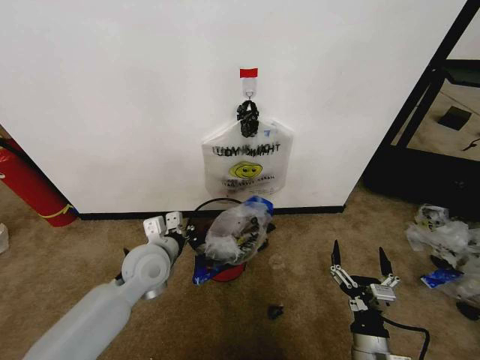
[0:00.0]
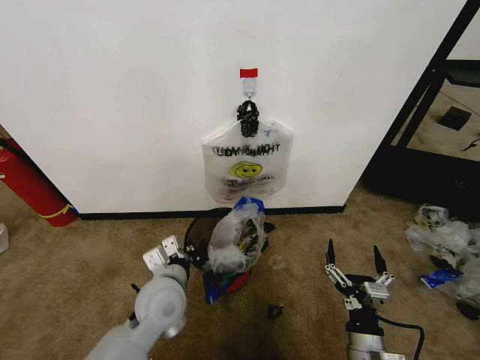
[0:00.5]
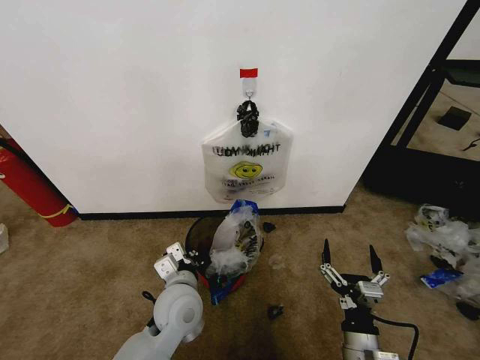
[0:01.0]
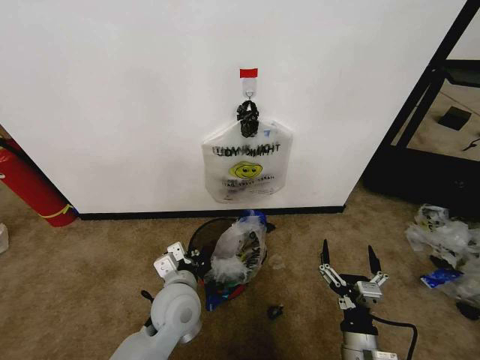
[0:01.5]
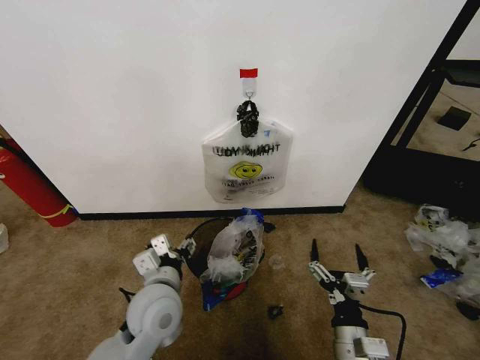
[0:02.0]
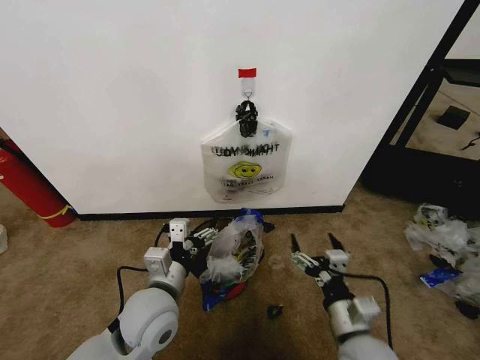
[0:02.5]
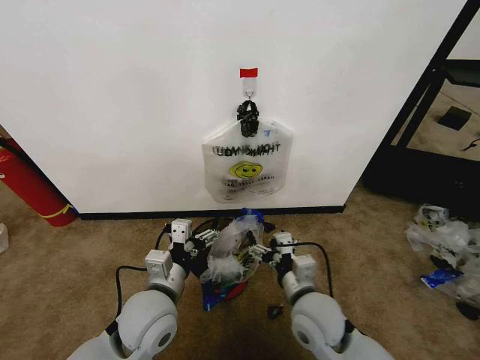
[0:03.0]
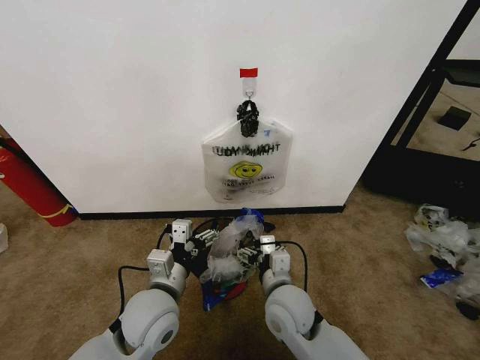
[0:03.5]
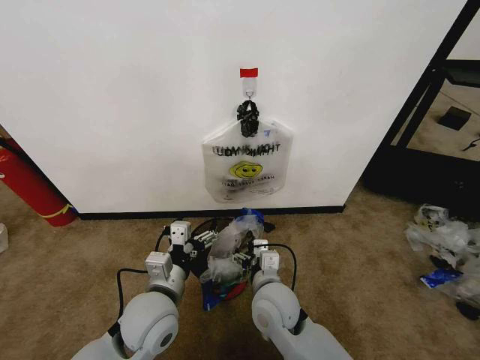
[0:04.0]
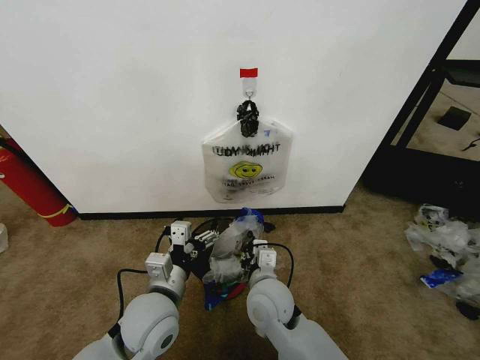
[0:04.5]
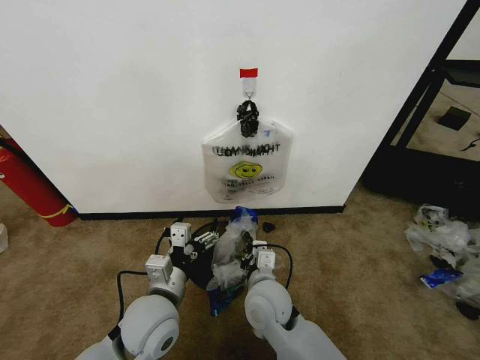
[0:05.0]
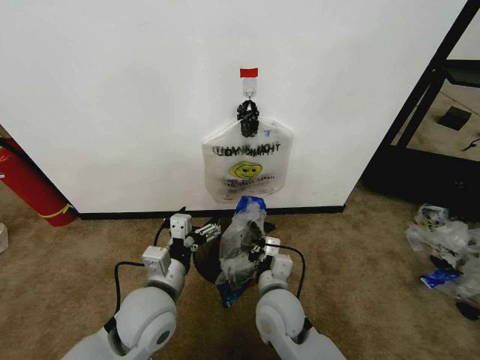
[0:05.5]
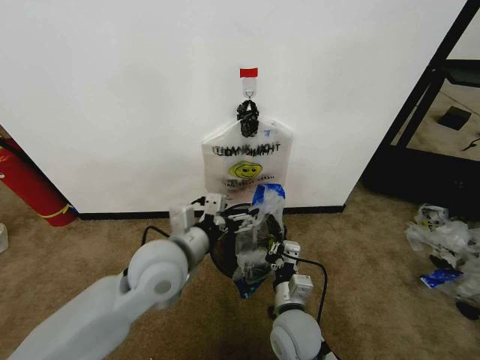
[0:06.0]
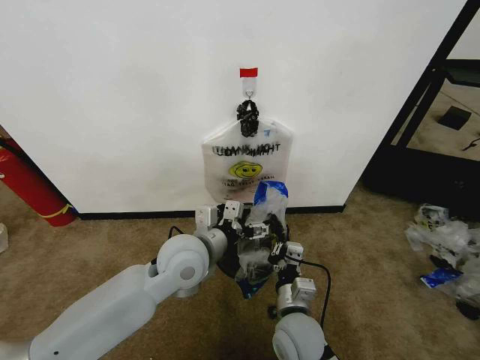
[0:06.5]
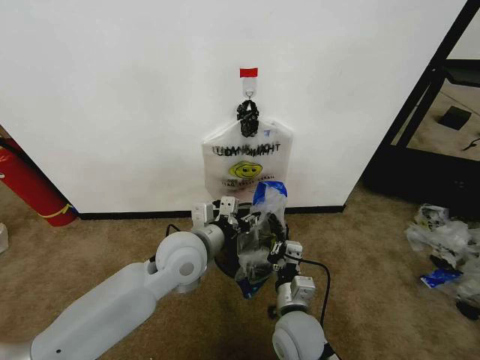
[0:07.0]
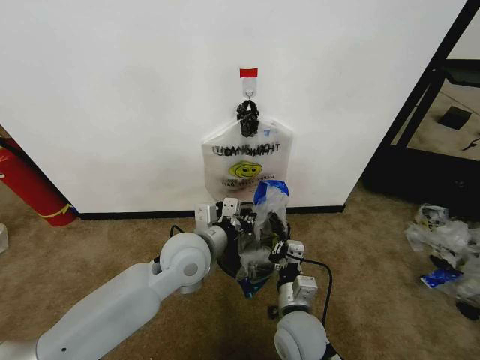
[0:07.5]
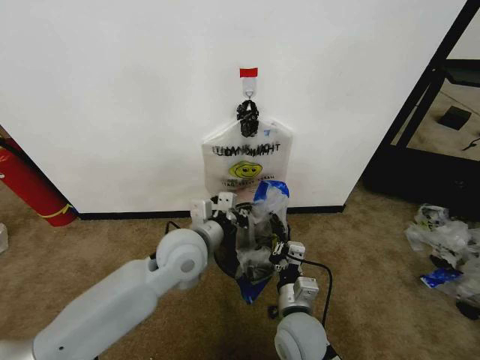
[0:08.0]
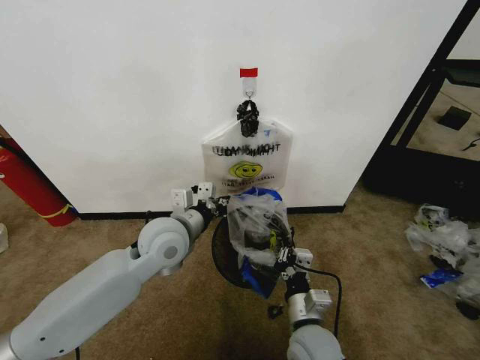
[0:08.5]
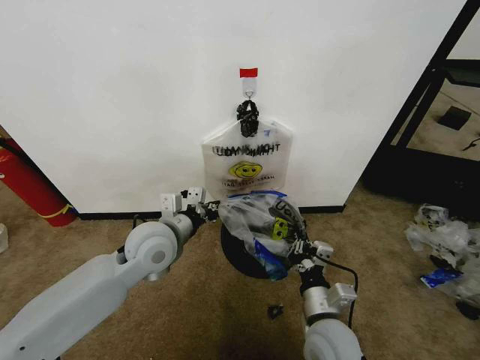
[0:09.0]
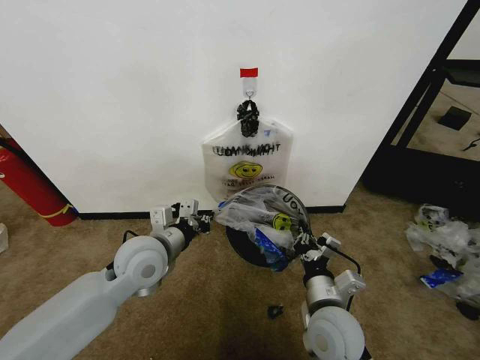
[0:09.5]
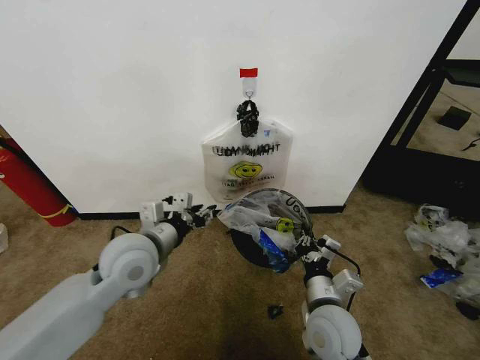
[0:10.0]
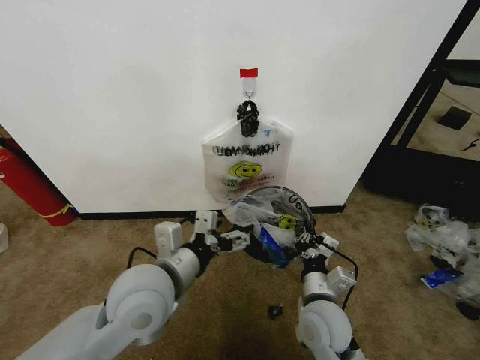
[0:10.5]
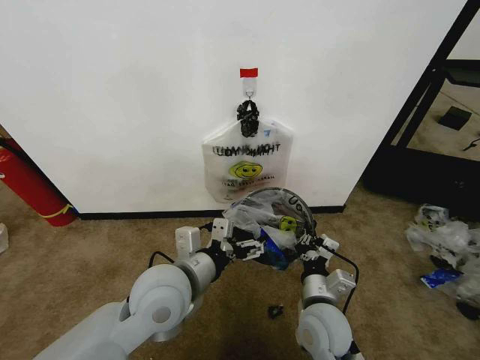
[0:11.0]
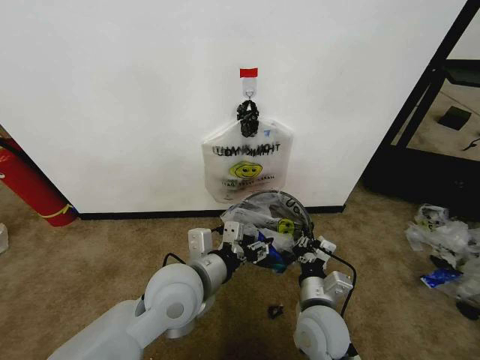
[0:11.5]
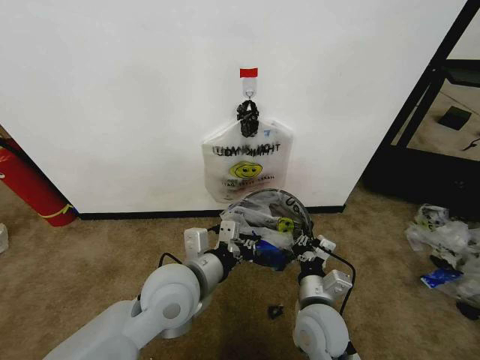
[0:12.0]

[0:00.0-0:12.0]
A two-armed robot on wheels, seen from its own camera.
Task of the whole recording: Pick up the garbage bag from the wall and place it over the trash bin.
0:00.0 to 0:02.0: The left gripper heads backward, covering some 10 cm, and opens up.
0:02.0 to 0:04.0: The right gripper shifts roughly 20 cm to the left and forward.
0:04.0 to 0:06.0: The left gripper is displaced upward by some 10 cm; the right gripper moves approximately 5 cm, and closes its fingers.
0:06.0 to 0:08.0: The left gripper goes some 5 cm forward, and closes.
0:08.0 to 0:10.0: The right gripper shifts roughly 5 cm to the right. The left gripper is displaced to the left by some 10 cm, and opens.
0:10.0 to 0:12.0: The left gripper goes roughly 10 cm to the right and backward, and closes its fingers.

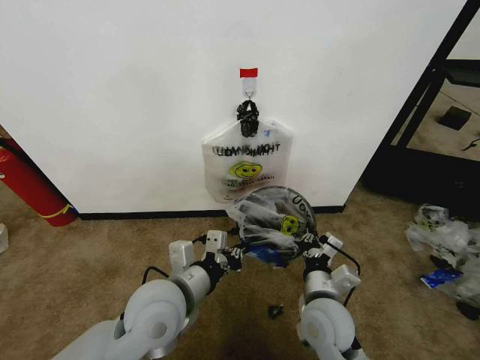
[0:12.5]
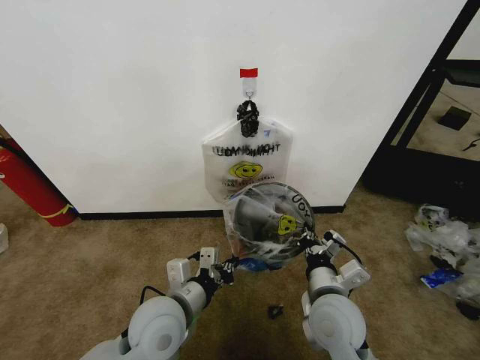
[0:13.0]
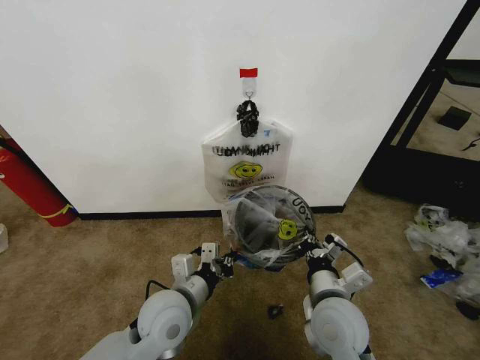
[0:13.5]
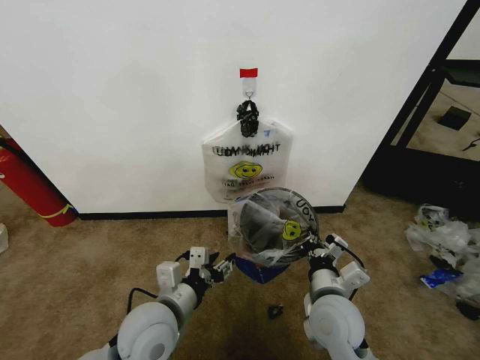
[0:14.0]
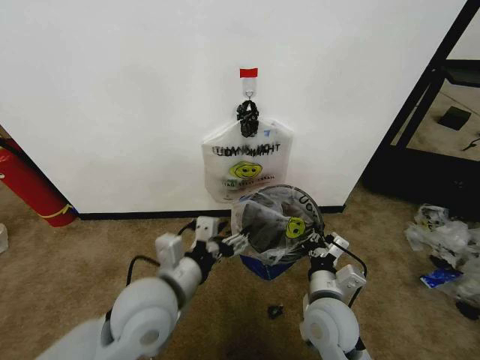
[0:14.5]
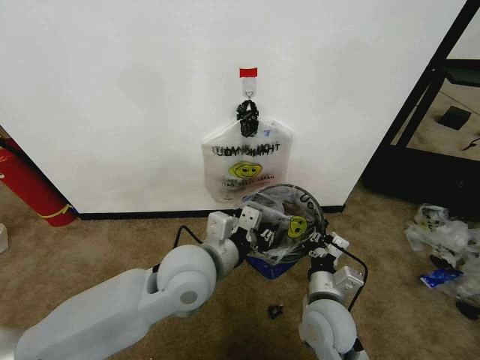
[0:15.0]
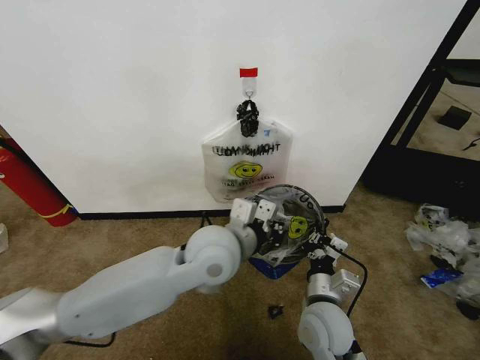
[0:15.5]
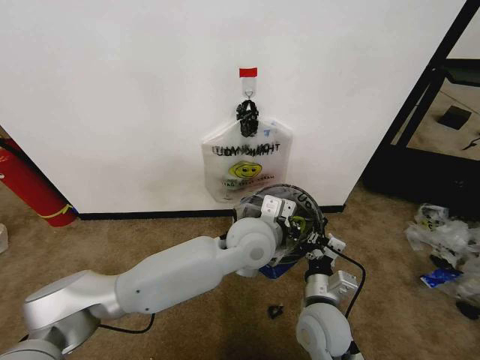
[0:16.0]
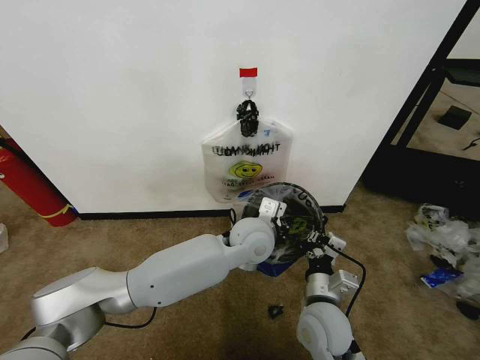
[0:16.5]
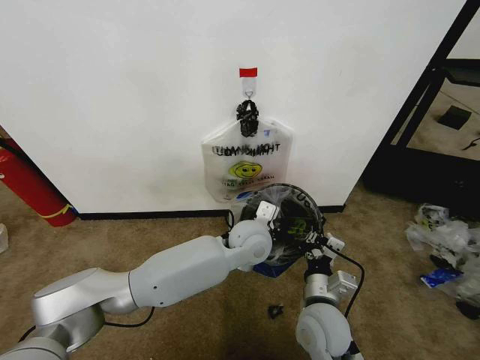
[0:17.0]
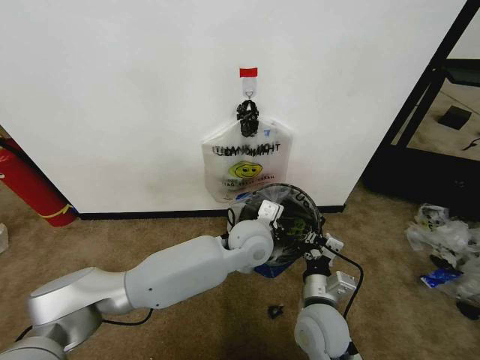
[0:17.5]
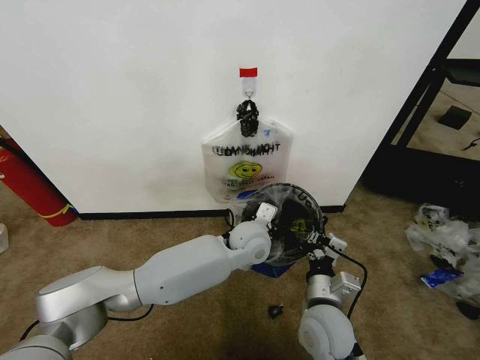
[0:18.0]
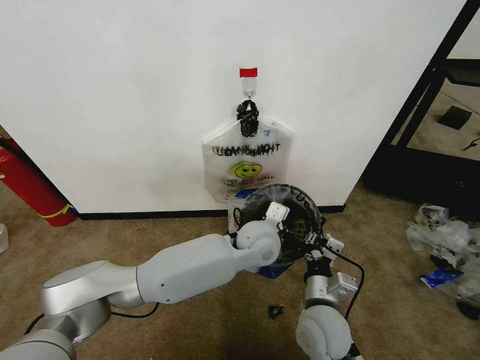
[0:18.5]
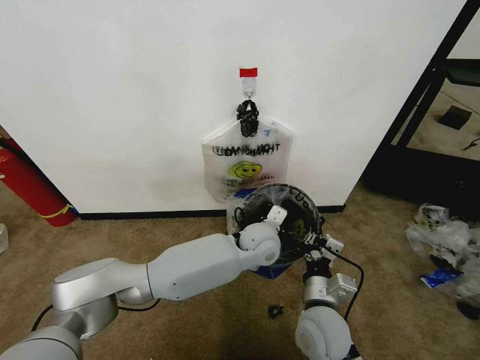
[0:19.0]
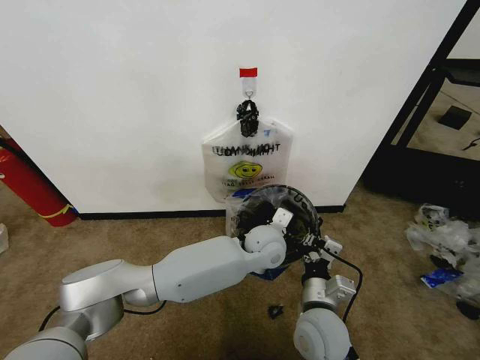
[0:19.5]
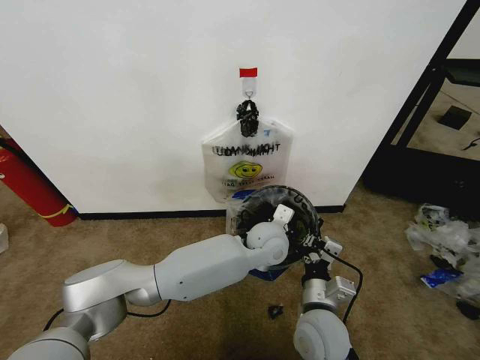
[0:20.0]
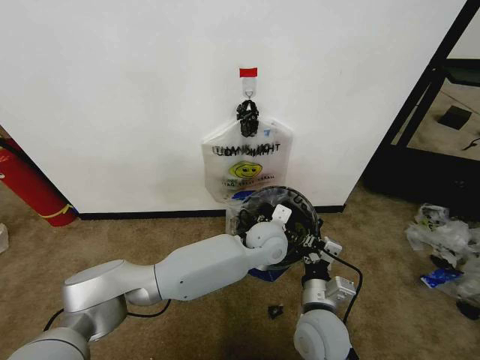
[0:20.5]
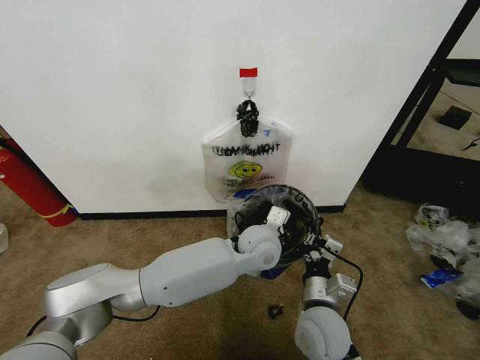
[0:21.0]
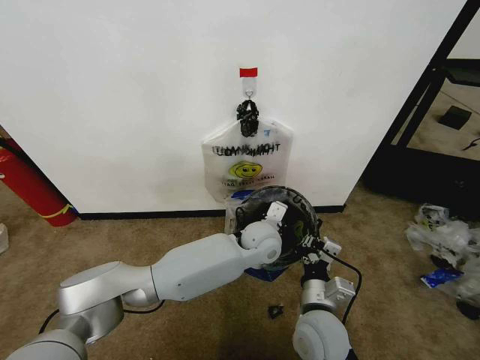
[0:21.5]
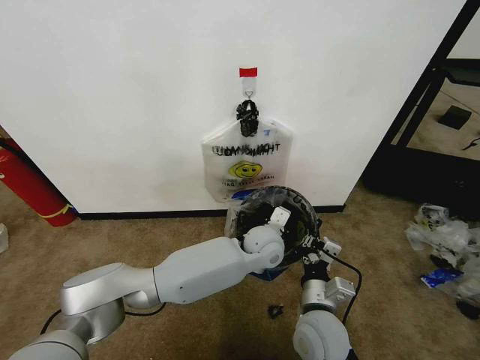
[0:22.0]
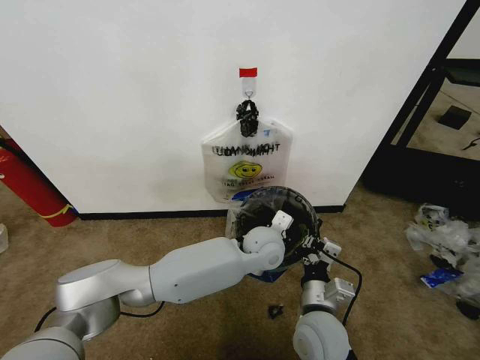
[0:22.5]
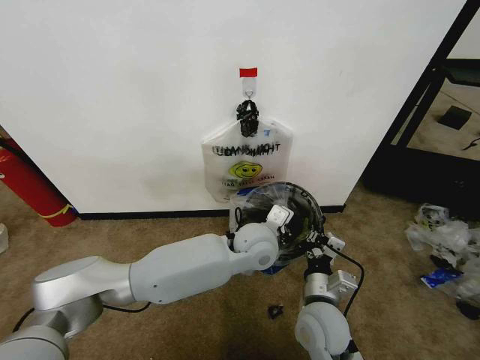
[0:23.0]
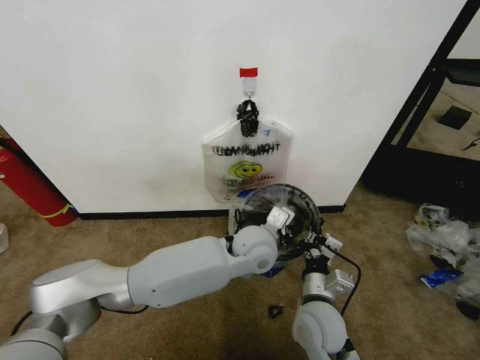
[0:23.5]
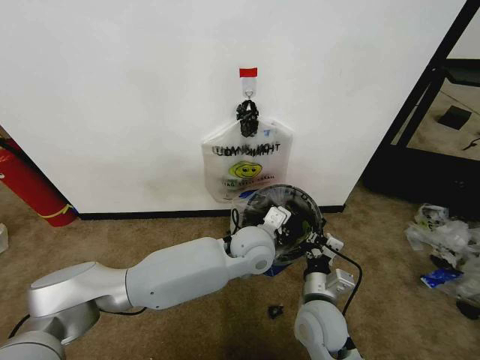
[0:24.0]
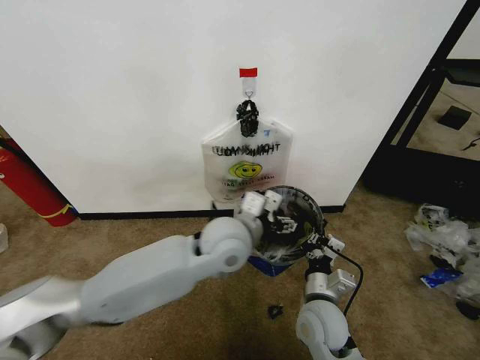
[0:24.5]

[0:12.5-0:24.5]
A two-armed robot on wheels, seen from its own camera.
Task of the whole recording: Pick up the garbage bag from the wall and place it over the trash bin.
0:12.5 to 0:14.5: The left gripper moves approximately 5 cm downward and comes back, and opens.
0:14.5 to 0:16.5: The left gripper moves to the right and forward, roughly 25 cm, and closes up.
0:16.5 to 0:18.5: The grippers move only a little.
0:18.5 to 0:20.5: The left gripper opens.
0:20.5 to 0:22.5: The left gripper closes up.
0:22.5 to 0:24.5: The left gripper is displaced upward, to the left and backward by about 15 cm, and opens up.

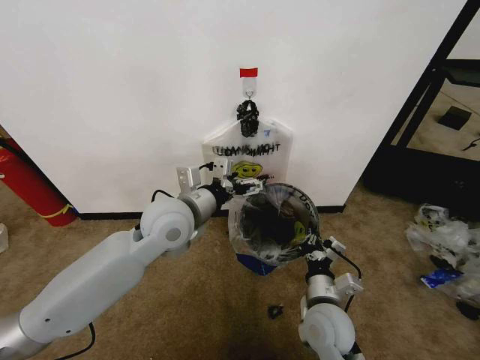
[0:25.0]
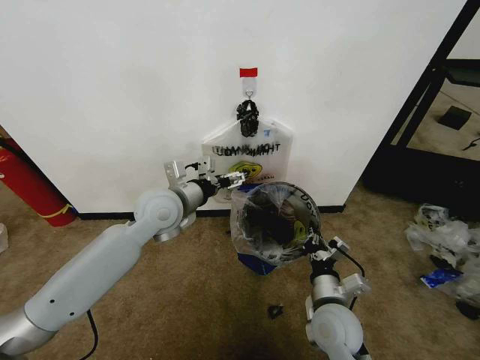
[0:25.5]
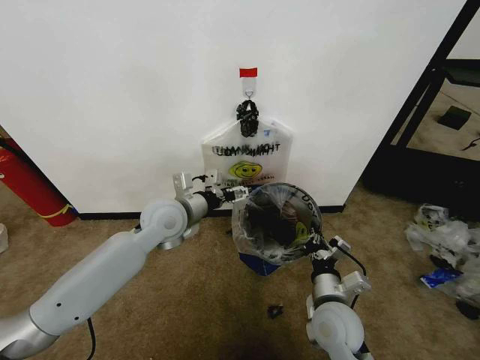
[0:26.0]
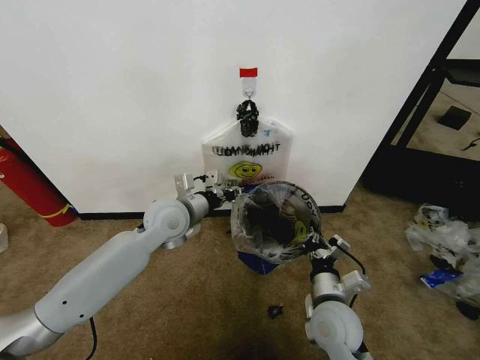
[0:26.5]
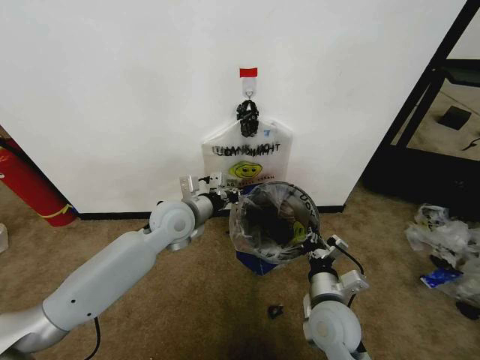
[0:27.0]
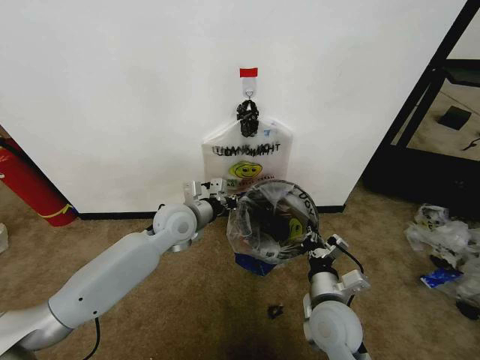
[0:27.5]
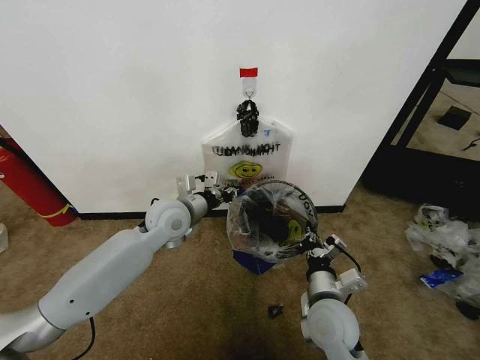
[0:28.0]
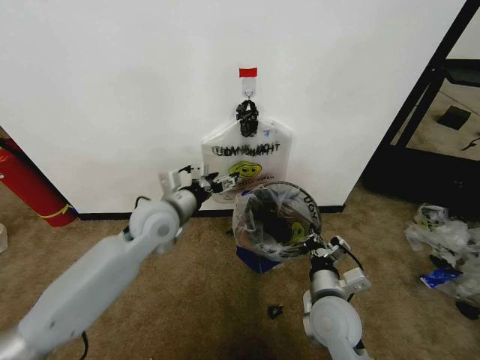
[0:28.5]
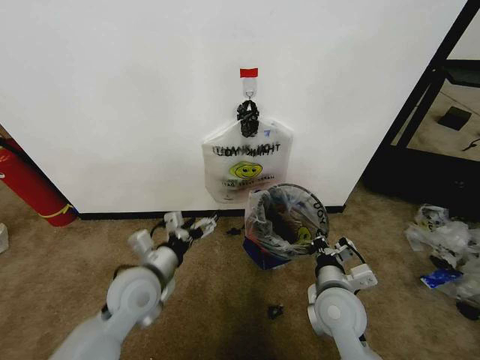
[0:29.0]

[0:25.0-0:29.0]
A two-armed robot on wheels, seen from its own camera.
Task of the whole recording: Pick up the garbage bag from the wall and place it over the trash bin.
0:25.0 to 0:27.0: The left gripper travels downward and forward by approximately 10 cm, and closes.
0:27.0 to 0:29.0: The left gripper shifts about 15 cm backward, downward and to the left, and opens up.
